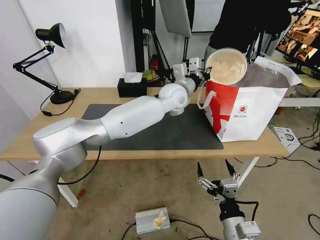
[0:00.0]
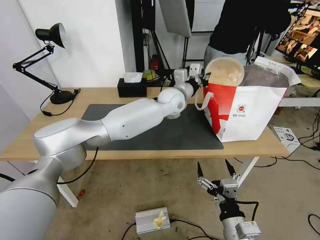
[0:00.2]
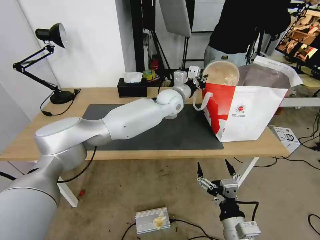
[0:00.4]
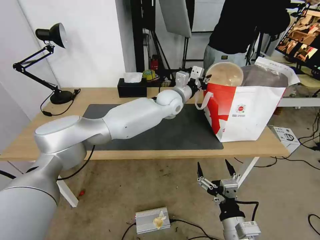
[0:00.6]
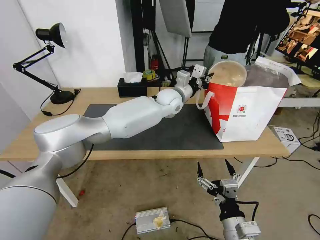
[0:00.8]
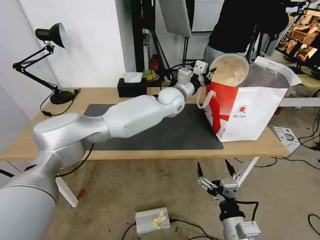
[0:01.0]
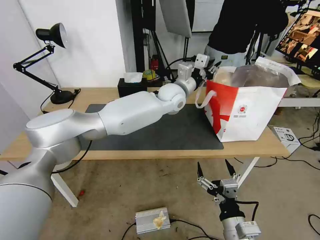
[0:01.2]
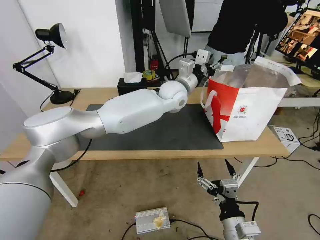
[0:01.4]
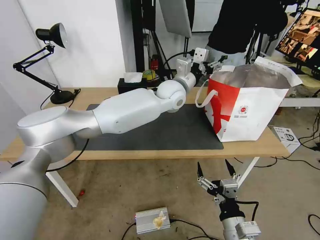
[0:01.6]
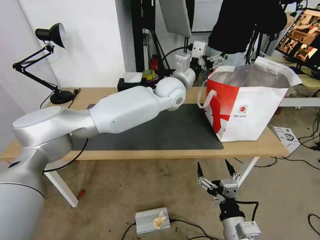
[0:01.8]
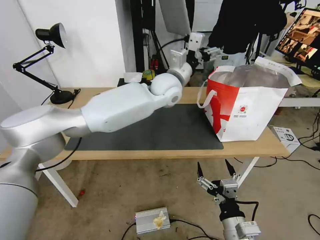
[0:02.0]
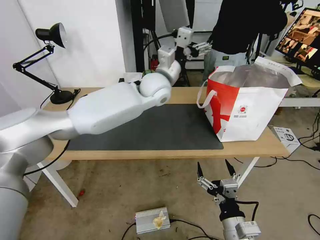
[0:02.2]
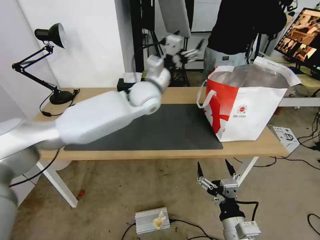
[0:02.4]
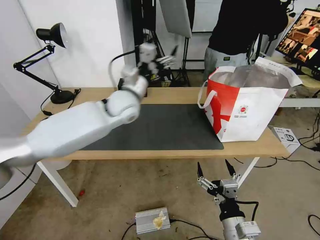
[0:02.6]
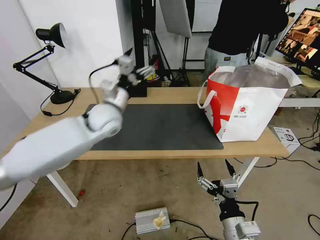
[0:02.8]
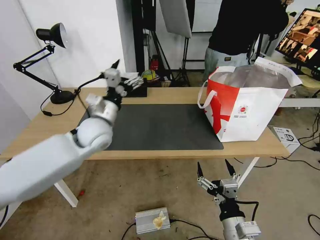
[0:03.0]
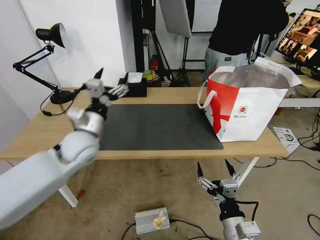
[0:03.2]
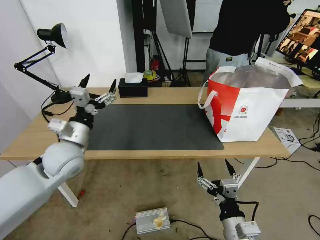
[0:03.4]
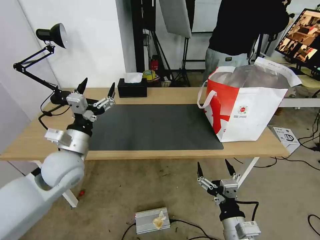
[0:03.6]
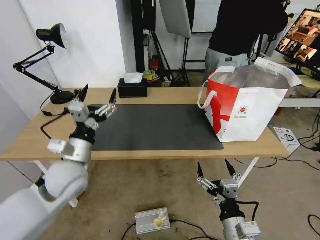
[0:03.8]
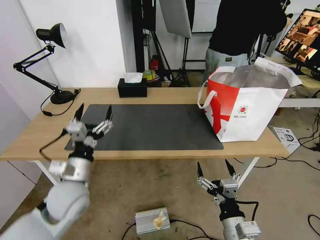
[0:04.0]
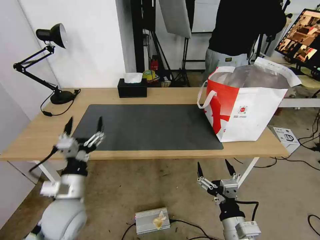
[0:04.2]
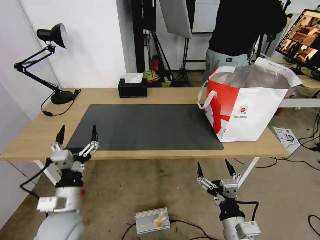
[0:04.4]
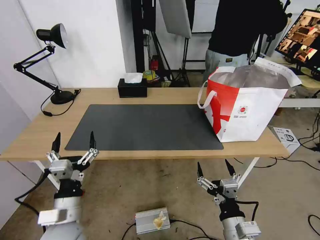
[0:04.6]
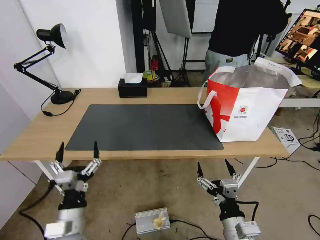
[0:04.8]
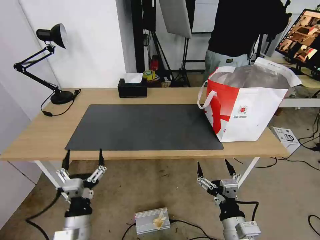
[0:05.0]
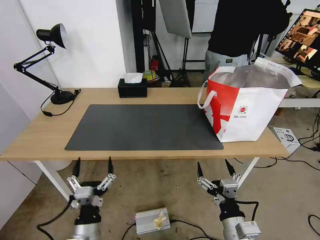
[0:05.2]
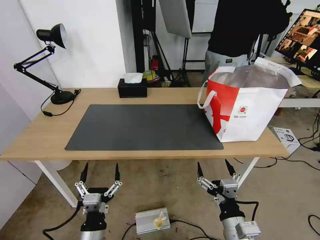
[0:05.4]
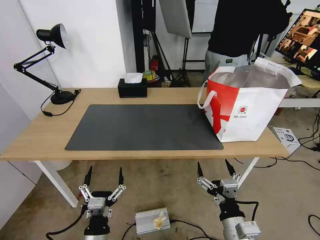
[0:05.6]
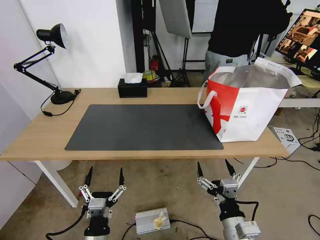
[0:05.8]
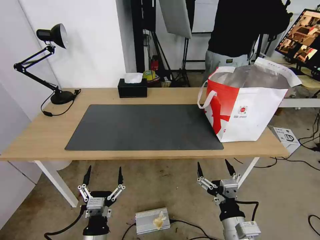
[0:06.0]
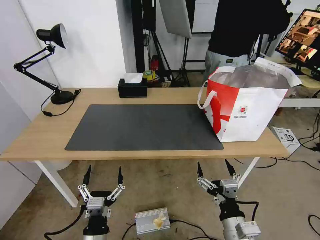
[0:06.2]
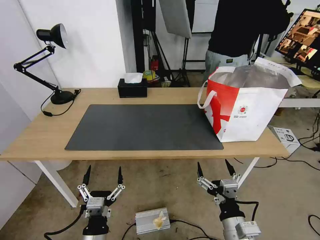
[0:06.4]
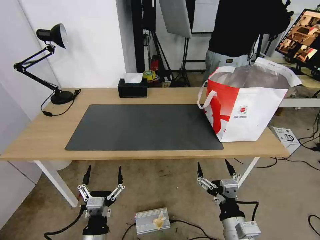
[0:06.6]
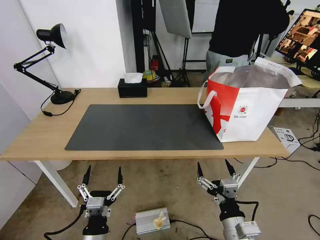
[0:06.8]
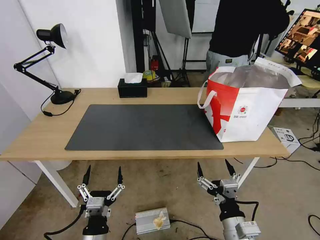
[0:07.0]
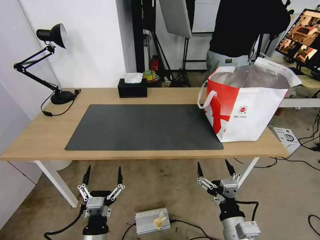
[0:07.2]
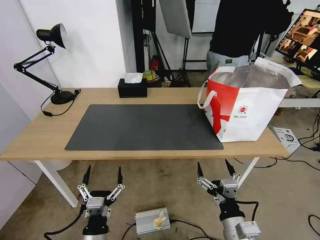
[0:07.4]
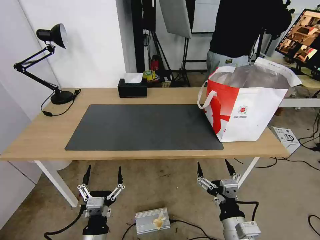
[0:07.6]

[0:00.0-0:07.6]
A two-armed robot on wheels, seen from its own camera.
Task of the whole recording: Pick up the trash from the table and place it into the takeout bag.
0:00.0 to 0:01.6: The left gripper opens.
0:01.6 to 0:03.0: The left gripper travels to the left and backward by roughly 25 cm.
0:03.0 to 0:04.6: The left gripper goes about 25 cm backward and downward.
0:04.6 to 0:06.0: The left gripper heads downward, backward and to the right, covering roughly 10 cm.
0:06.0 to 0:07.6: Both grippers stay about where they are.

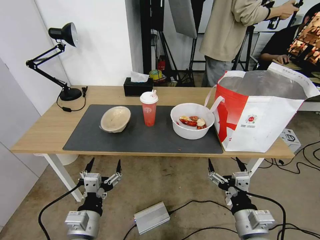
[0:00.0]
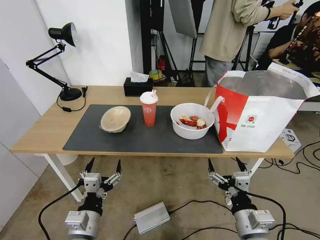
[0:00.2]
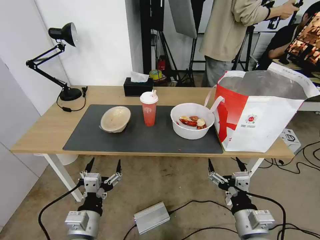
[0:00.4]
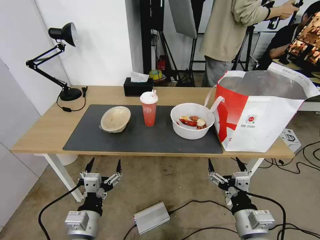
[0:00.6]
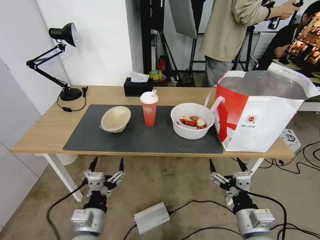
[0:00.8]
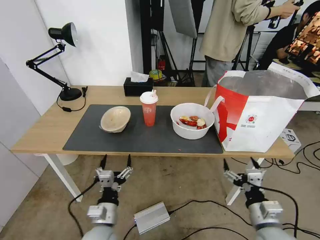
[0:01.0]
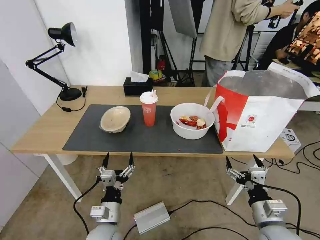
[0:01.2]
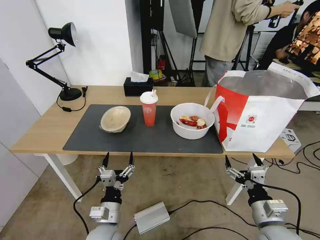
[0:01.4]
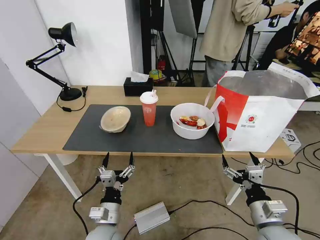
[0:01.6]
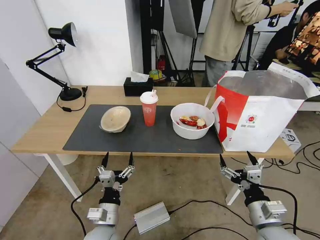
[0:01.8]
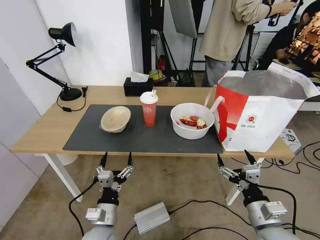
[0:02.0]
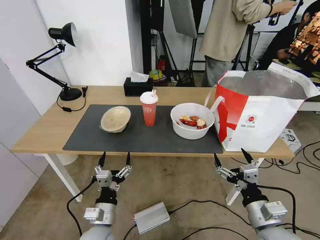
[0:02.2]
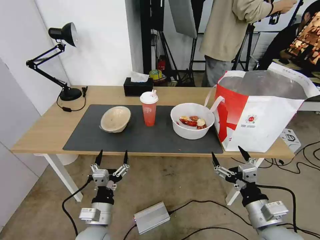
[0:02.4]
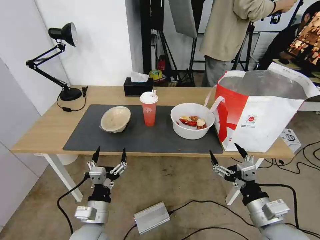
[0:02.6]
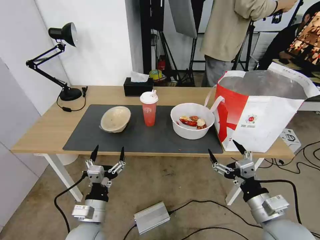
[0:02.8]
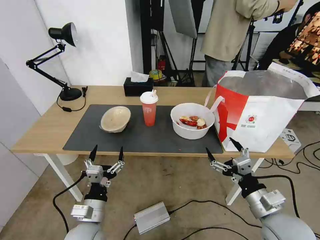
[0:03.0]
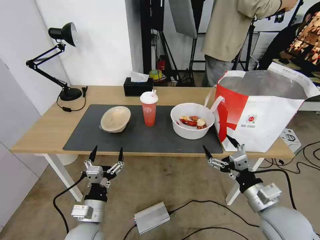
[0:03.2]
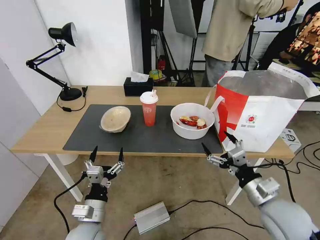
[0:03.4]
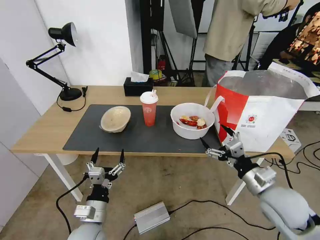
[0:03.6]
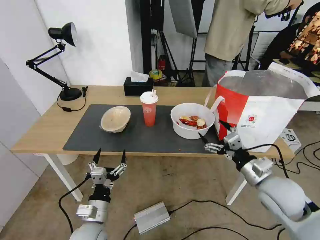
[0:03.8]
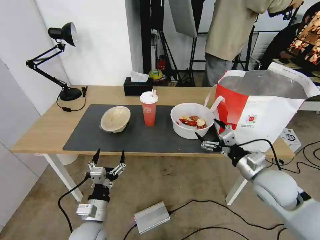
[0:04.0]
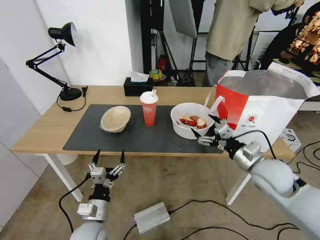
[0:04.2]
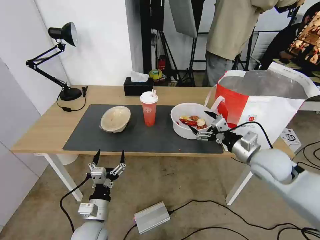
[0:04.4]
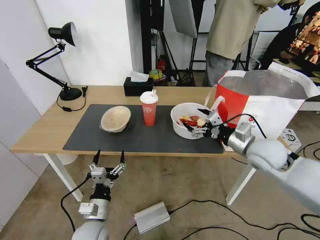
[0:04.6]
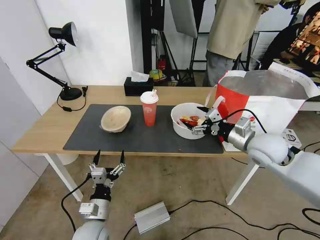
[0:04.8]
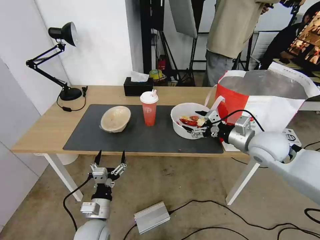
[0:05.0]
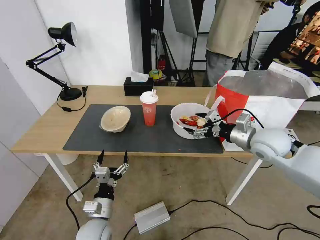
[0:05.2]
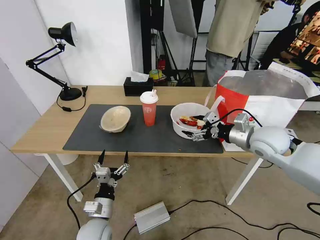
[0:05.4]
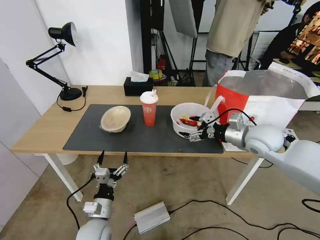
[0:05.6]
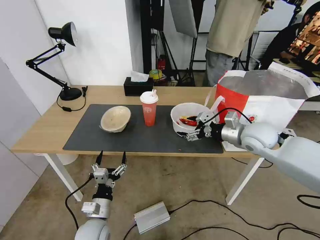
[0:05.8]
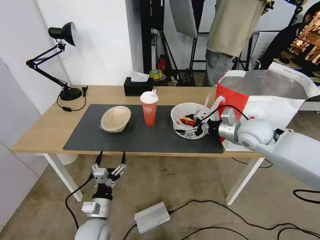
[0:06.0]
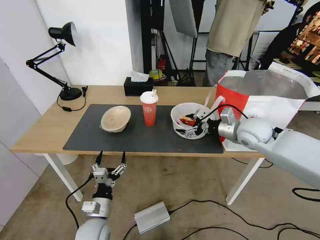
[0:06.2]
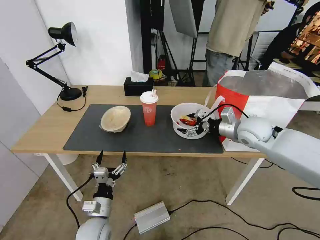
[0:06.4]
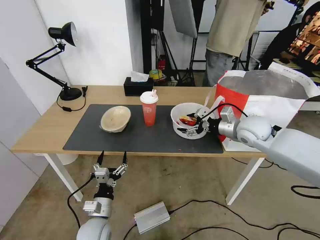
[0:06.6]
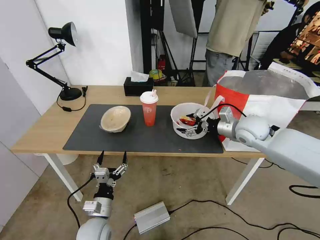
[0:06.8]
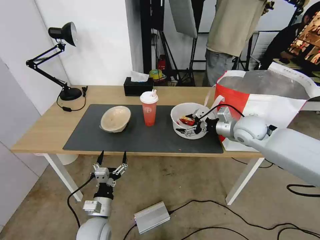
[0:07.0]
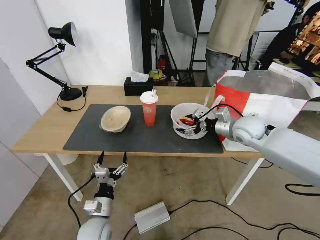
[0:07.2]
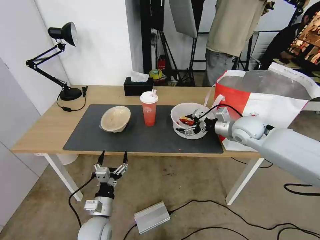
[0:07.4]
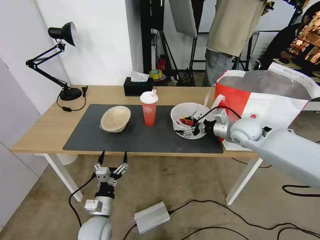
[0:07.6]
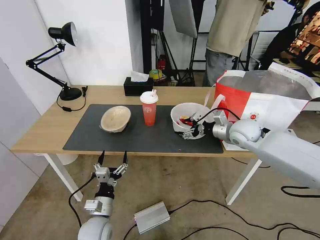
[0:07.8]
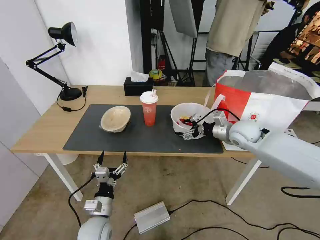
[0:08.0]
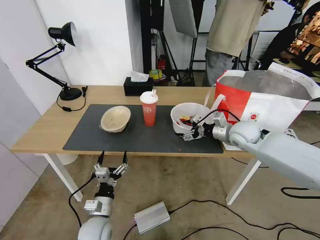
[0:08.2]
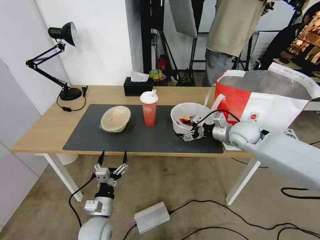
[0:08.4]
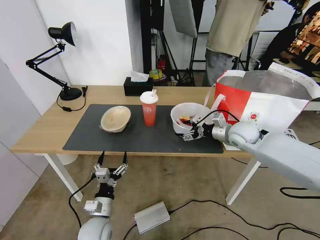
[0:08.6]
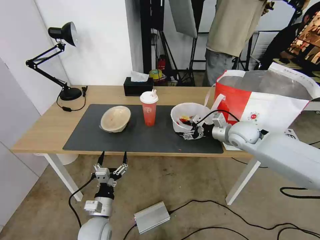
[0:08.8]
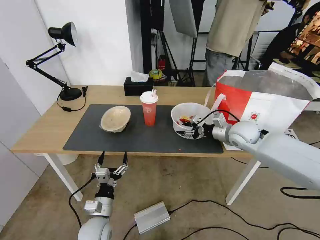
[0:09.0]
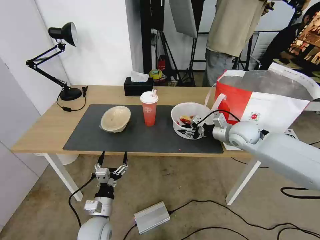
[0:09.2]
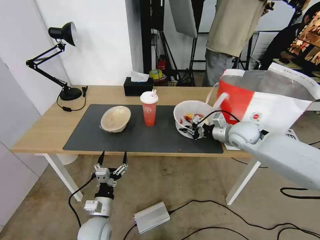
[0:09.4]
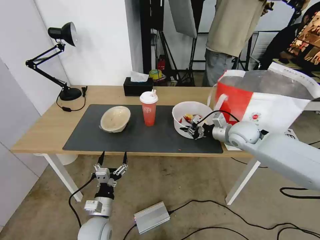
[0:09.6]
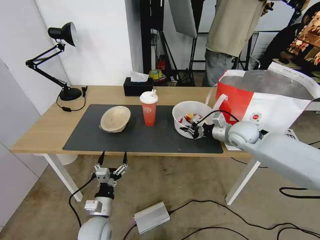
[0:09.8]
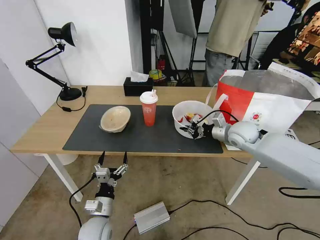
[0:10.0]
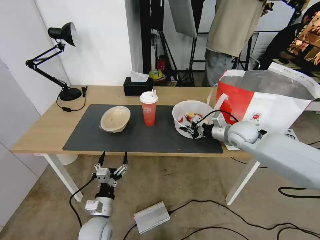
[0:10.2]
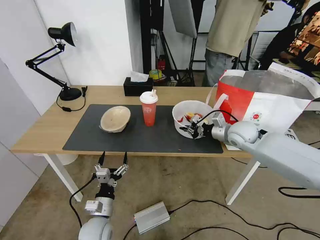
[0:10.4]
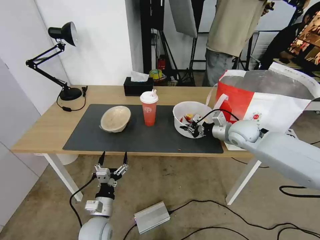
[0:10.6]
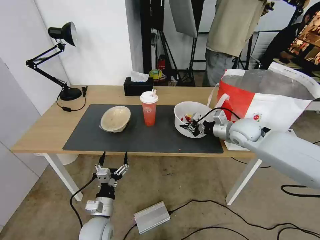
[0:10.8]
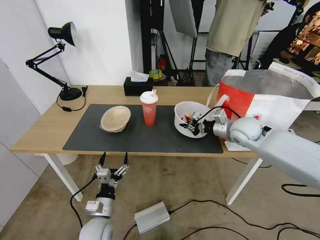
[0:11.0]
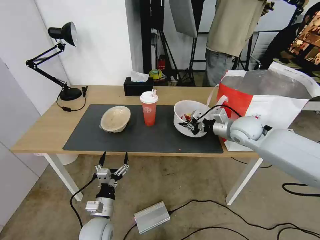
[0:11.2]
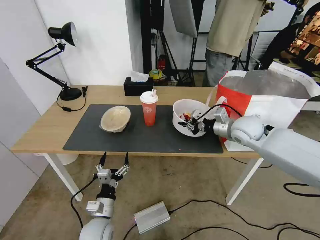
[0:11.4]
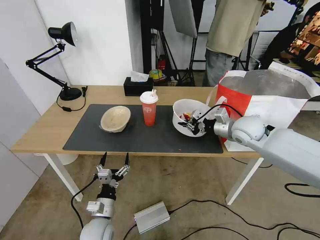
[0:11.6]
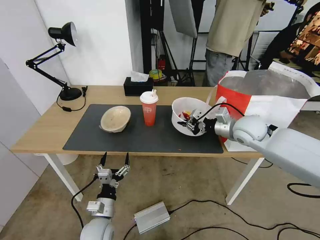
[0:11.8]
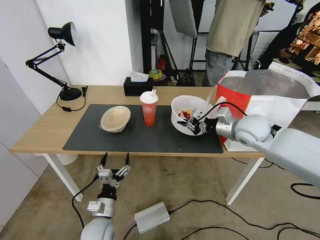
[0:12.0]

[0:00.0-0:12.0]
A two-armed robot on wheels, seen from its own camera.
Task of the whole recording: Pick up the trash from the table and place it into the takeout bag.
0:01.6 to 0:03.0: The left gripper ends up some 5 cm from where it was.
0:03.0 to 0:04.4: The right gripper travels forward by approximately 15 cm.
0:04.4 to 0:06.0: The right gripper travels forward by roughly 10 cm.
0:06.0 to 0:09.0: The grippers stay close to where they were, moving slightly.
0:09.0 to 0:10.4: The right gripper closes up.
0:10.4 to 0:12.0: The right gripper heads upward, covering roughly 5 cm.

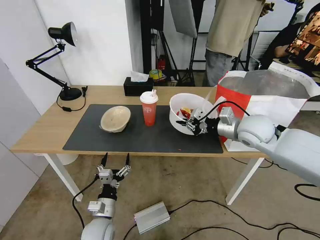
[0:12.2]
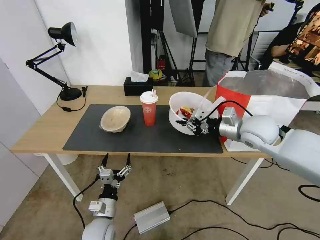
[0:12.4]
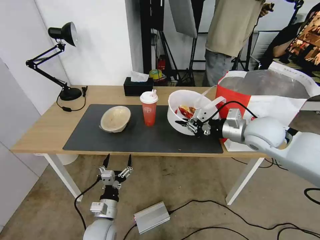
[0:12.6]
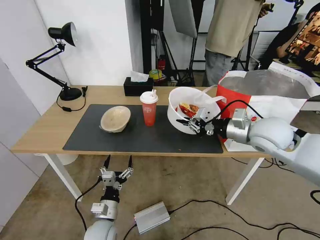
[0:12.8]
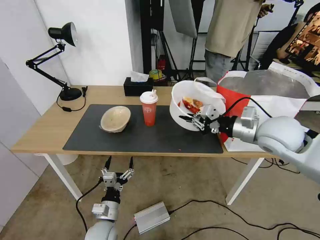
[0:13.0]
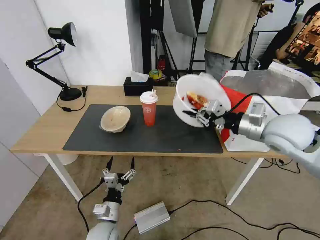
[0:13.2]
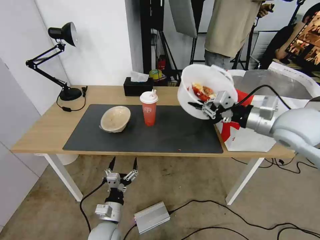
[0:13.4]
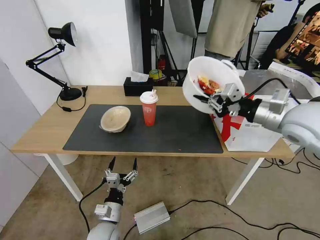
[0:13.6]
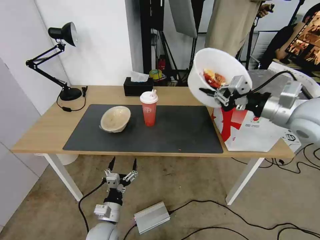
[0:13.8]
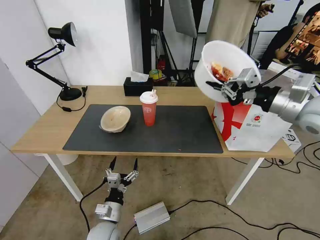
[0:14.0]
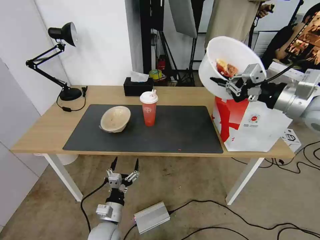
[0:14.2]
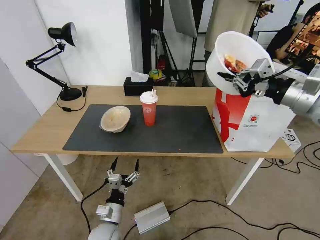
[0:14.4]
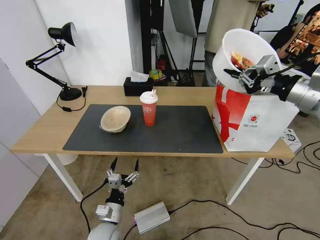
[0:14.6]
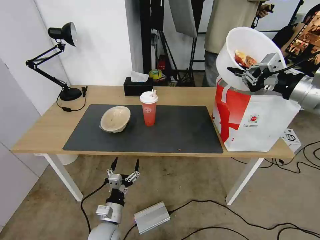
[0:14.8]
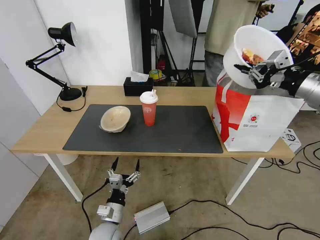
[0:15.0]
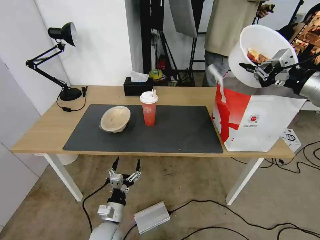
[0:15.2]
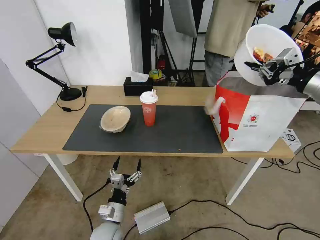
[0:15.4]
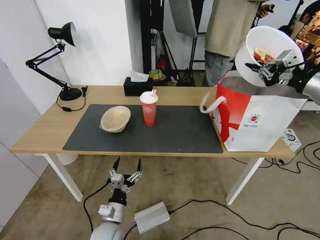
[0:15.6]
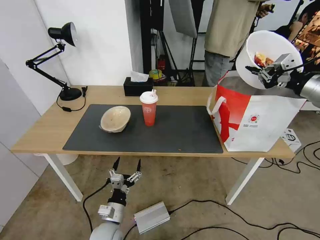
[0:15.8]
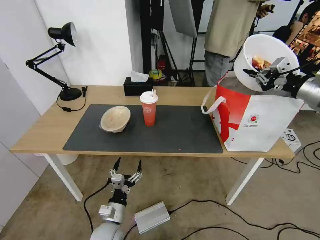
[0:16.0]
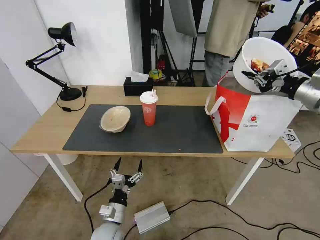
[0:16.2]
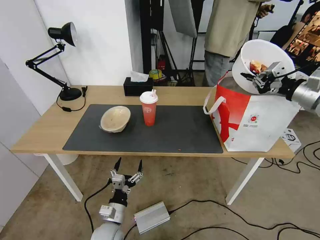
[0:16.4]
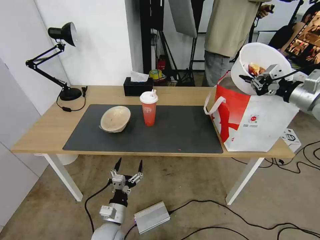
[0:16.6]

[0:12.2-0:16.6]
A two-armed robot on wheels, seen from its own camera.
Task of the whole recording: Pick up the trash from the table and place it into the takeout bag.
0:12.2 to 0:13.6: The right gripper travels upward and backward by roughly 10 cm.
0:13.6 to 0:15.2: The right gripper heads to the right and upward, covering some 10 cm.
0:15.2 to 0:16.6: The right gripper travels downward by roughly 5 cm.
